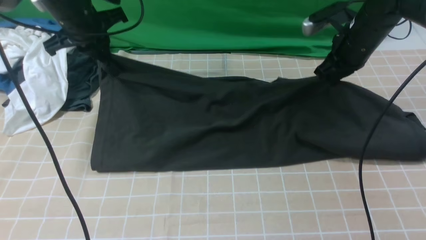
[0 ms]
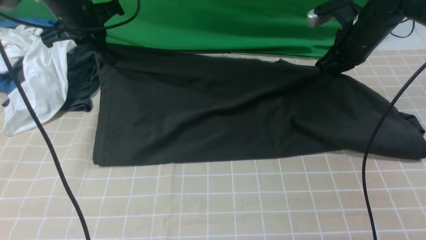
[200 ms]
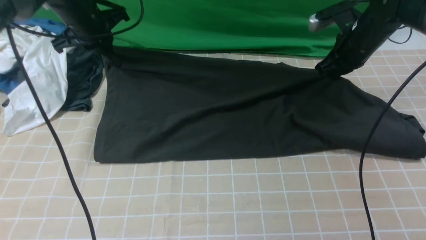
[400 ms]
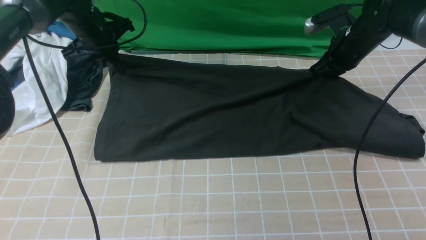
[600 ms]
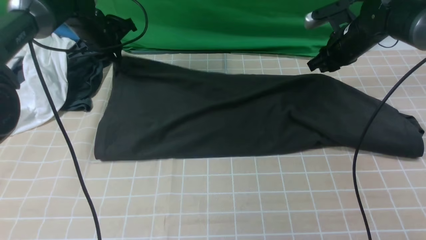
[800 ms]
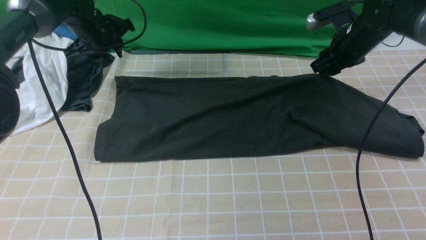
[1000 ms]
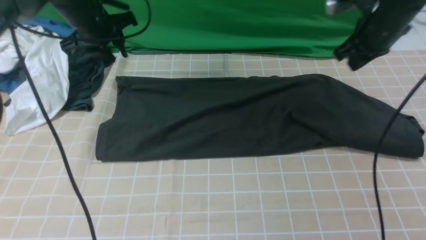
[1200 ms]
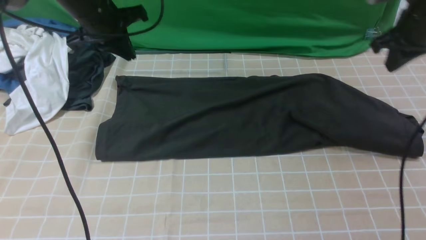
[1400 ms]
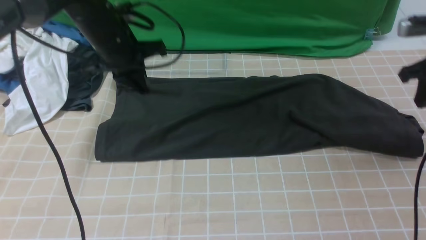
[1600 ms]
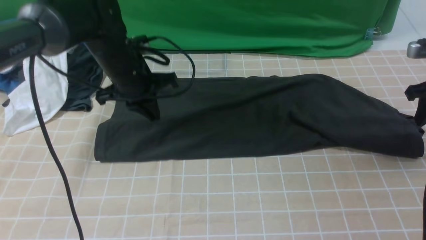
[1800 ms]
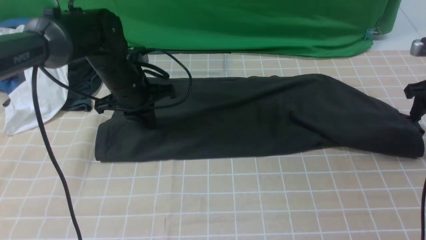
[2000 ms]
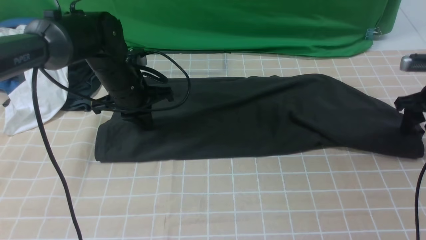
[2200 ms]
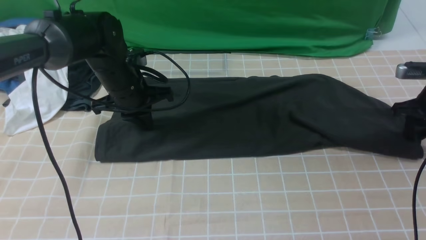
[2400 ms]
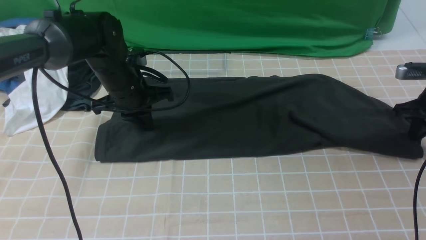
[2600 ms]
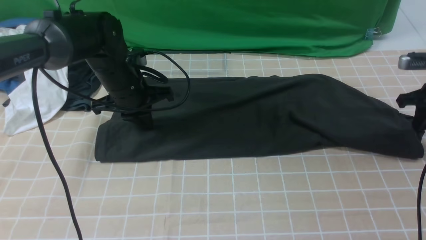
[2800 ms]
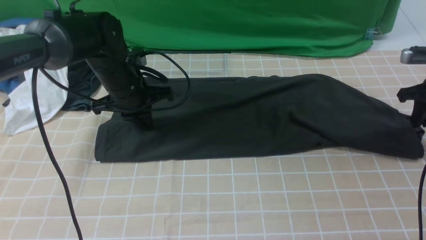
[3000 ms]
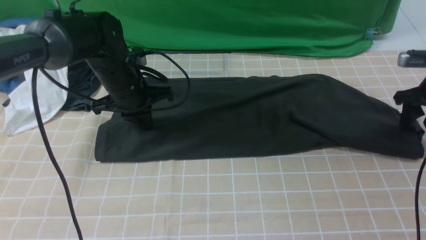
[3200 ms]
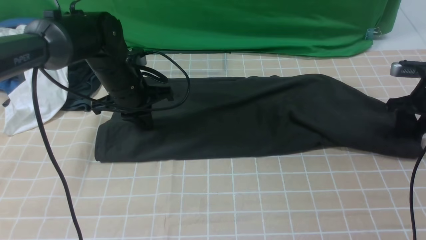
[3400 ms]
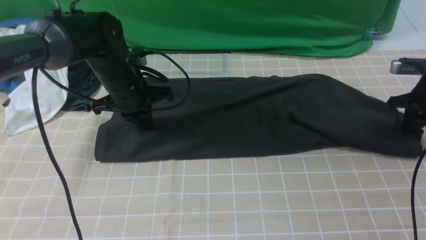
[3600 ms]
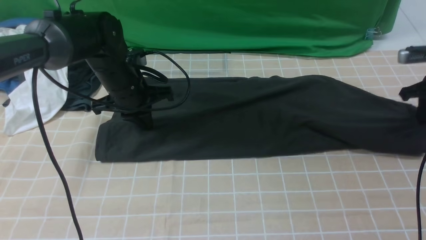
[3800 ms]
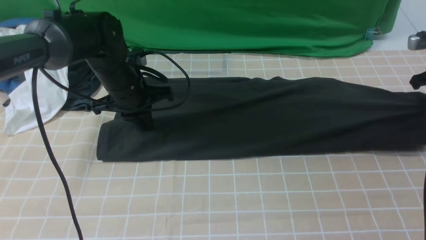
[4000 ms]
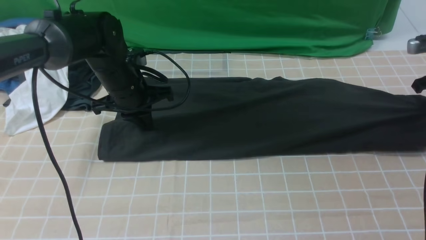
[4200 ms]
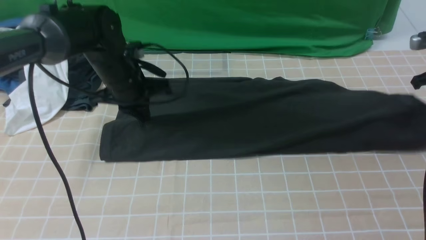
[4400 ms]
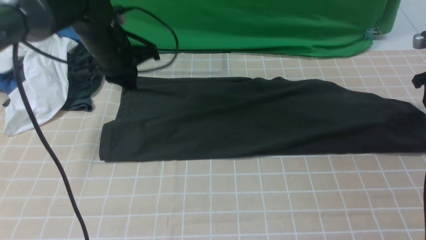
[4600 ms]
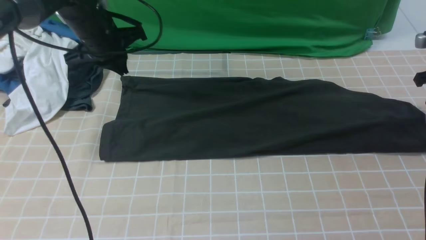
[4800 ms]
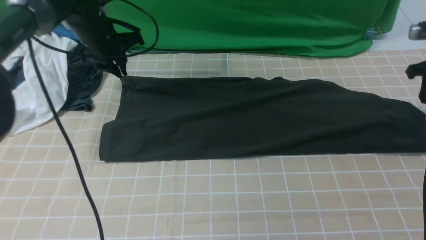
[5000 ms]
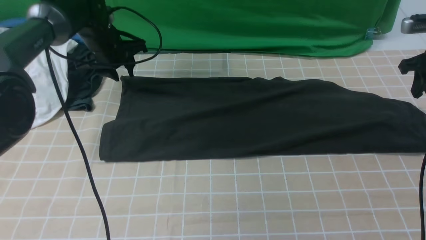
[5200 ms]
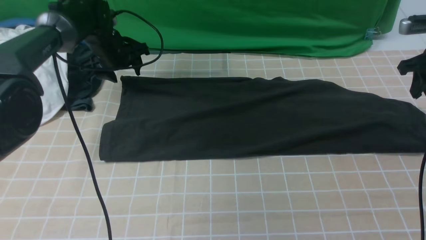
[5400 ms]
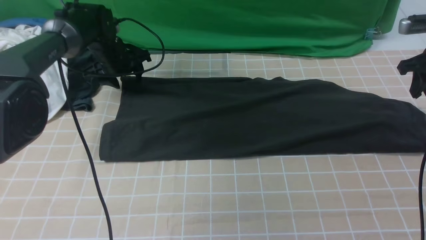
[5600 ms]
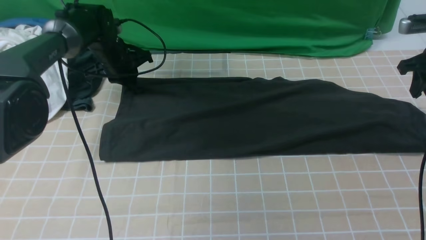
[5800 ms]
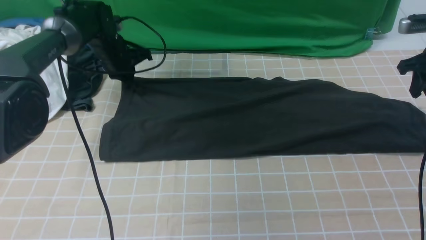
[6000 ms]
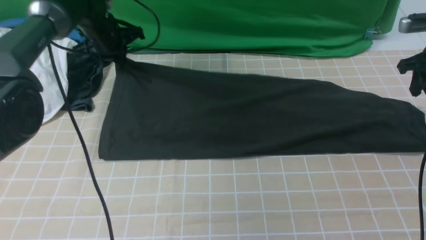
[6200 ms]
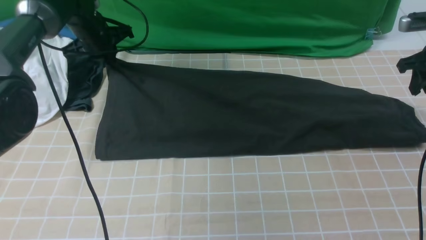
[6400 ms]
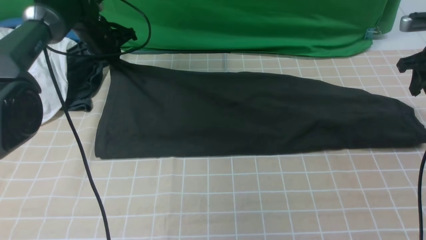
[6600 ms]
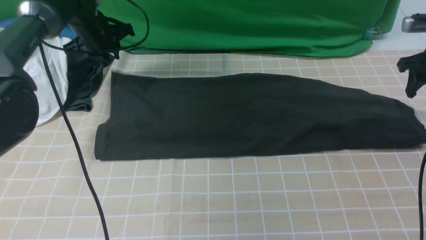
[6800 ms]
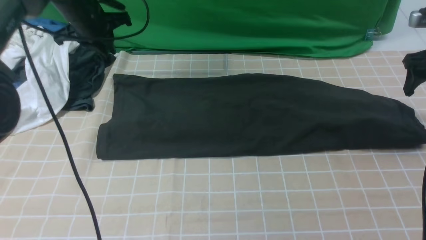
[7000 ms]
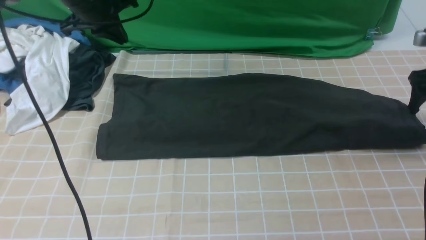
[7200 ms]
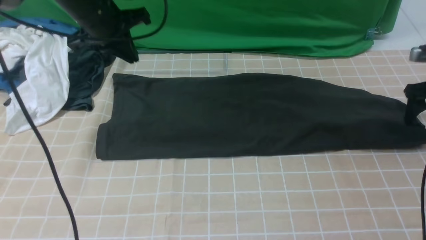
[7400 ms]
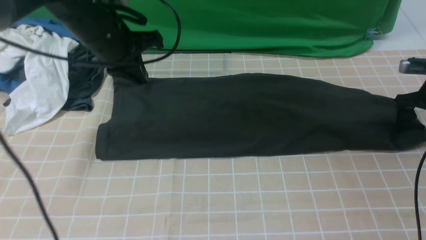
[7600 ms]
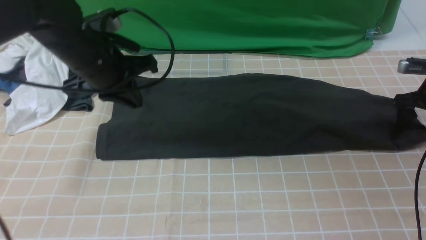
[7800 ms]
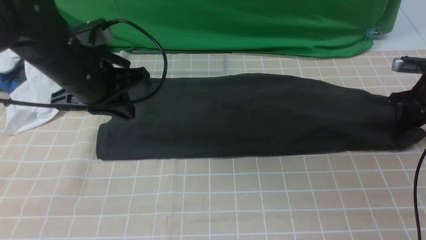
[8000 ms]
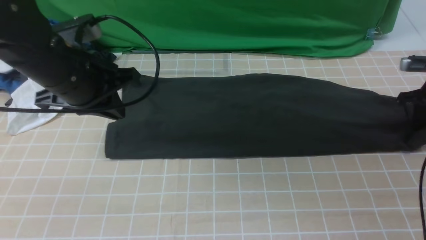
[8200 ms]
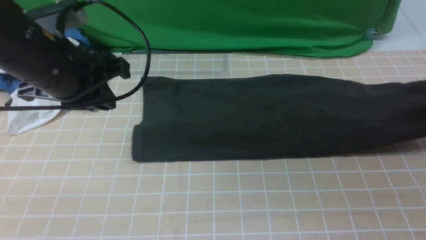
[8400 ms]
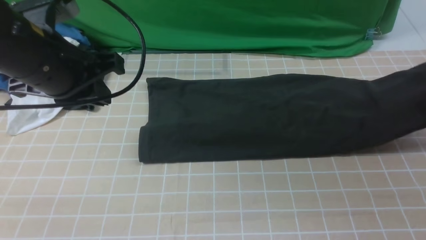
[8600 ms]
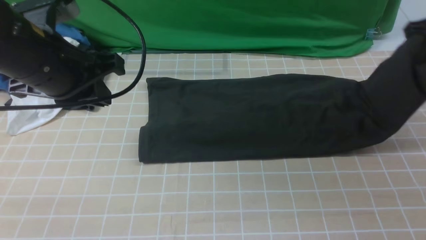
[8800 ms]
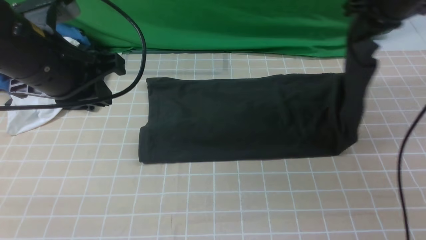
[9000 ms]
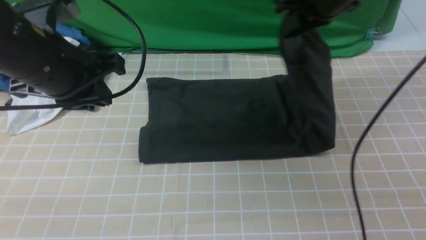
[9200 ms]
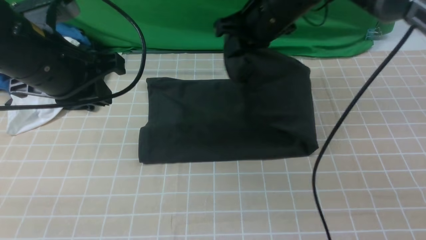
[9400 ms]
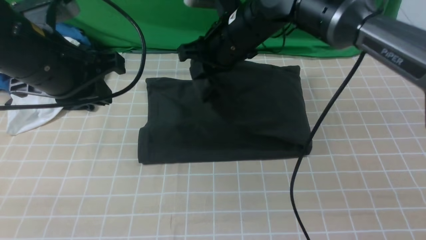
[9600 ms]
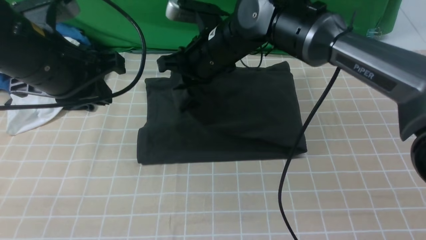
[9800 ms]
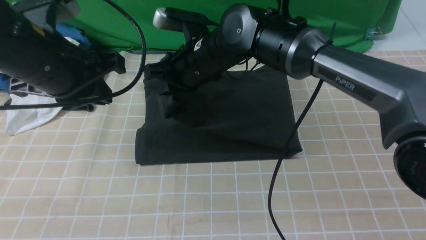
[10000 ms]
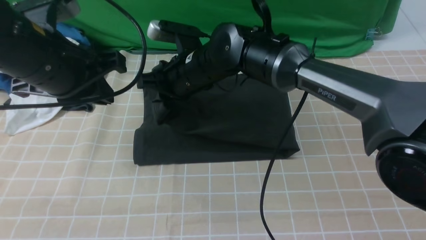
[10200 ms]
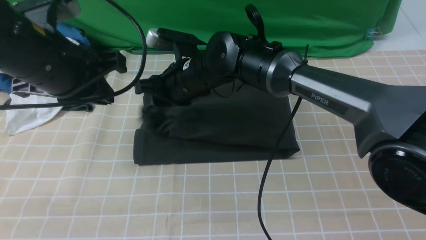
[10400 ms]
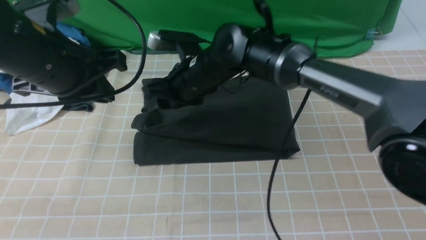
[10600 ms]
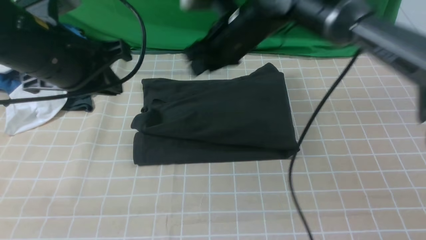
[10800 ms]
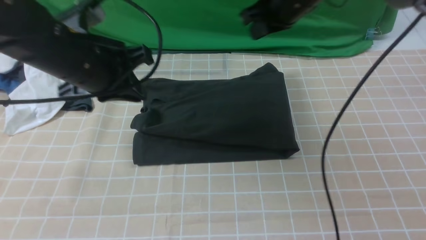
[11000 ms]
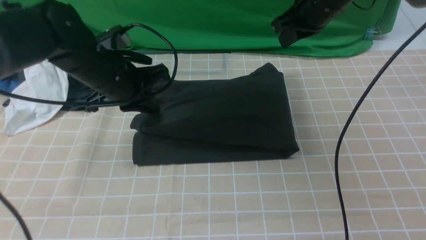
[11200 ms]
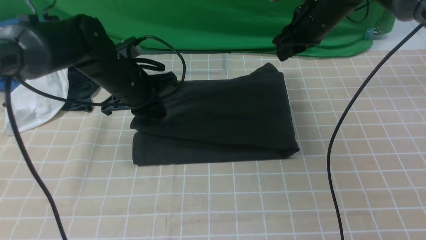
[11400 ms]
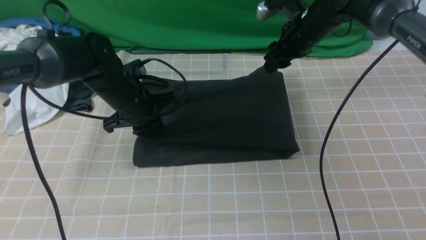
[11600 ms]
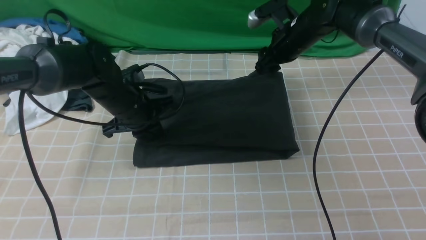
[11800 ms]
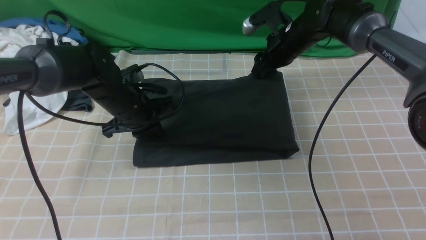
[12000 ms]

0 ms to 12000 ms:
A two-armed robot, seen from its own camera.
Step, 1000 ms to 8000 ms: use the right arm to clamp the right edge of the fabric.
Step, 8200 ms to 10800 ms: use the right arm to drag the right edge of the fabric to the left and folds it over the left edge.
0 ms to 1600 ms: The right gripper shifts some 15 cm to the right and backward; the left gripper travels to the right by roughly 5 cm, and opens, then closes once more.
1600 ms to 3000 ms: The two grippers go about 5 cm downward.
3000 ms to 4400 ms: The grippers make only small movements.
4400 ms to 6000 ms: The left gripper goes about 10 cm forward and to the left, and opens, then closes again.
6000 ms to 7600 ms: The right gripper goes some 10 cm downward, and opens its fingers. The left gripper travels backward and upward by roughly 15 cm.
7600 ms to 9000 ms: The left gripper shifts some 10 cm backward; the right gripper heads upward and to the left, covering about 25 cm, and closes up.
9000 ms to 10400 ms: The right gripper moves to the left and downward, some 30 cm, and opens.
10400 ms to 12000 ms: The right gripper is displaced to the right and forward by approximately 20 cm, and closes and opens again. Meanwhile the left gripper shifts approximately 20 cm downward and forward.

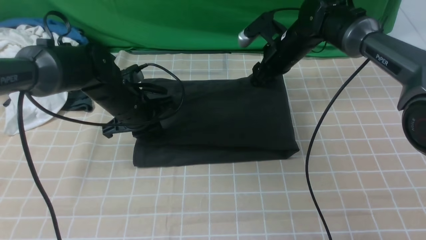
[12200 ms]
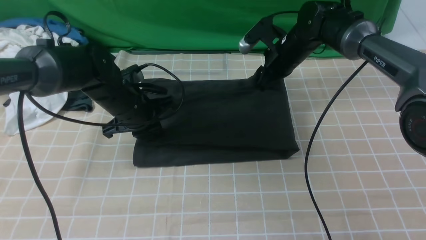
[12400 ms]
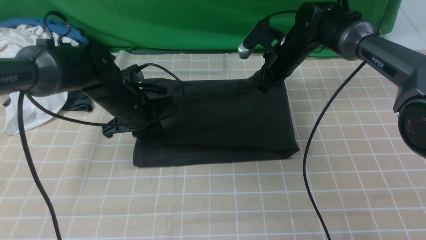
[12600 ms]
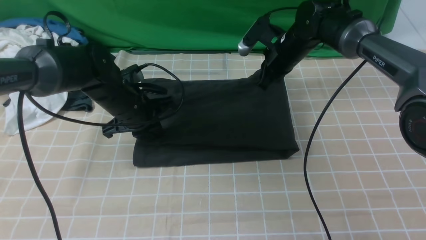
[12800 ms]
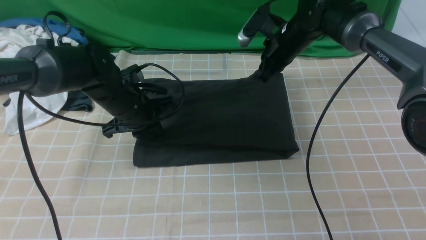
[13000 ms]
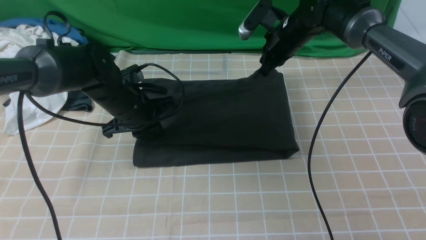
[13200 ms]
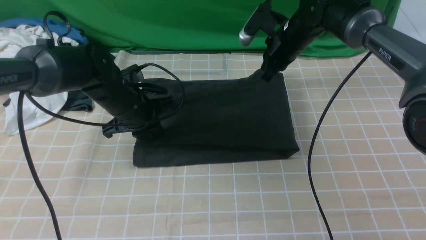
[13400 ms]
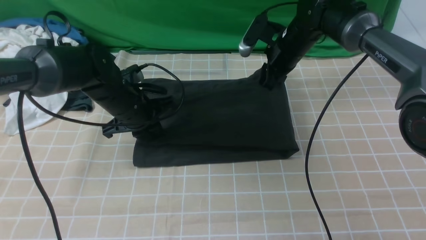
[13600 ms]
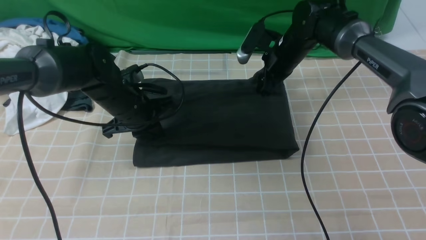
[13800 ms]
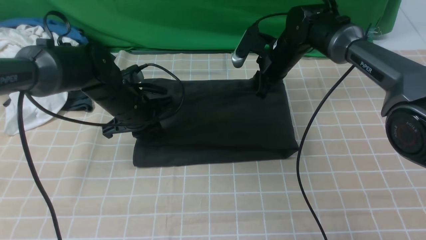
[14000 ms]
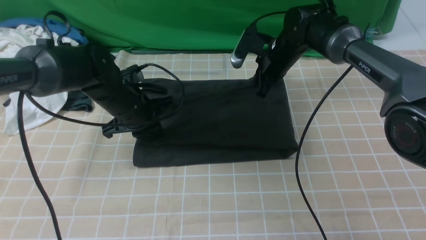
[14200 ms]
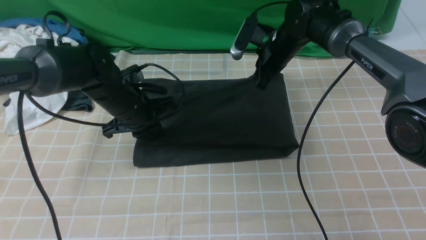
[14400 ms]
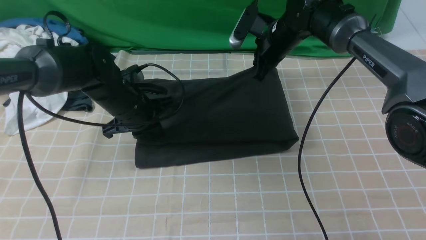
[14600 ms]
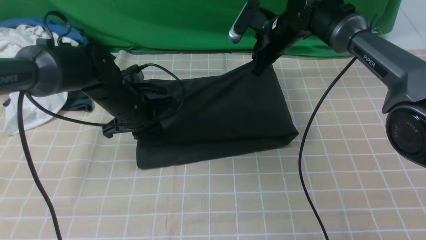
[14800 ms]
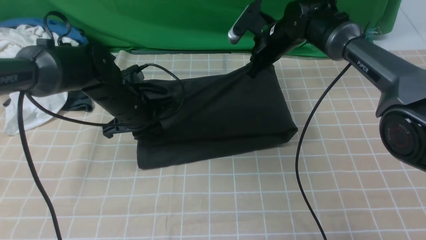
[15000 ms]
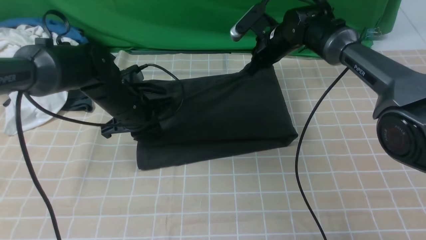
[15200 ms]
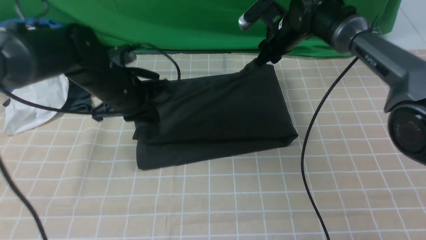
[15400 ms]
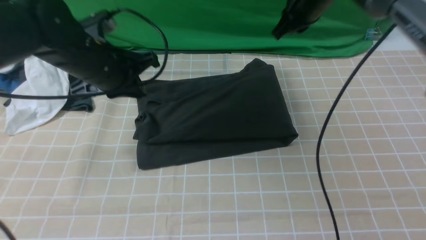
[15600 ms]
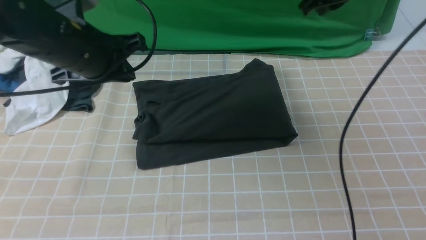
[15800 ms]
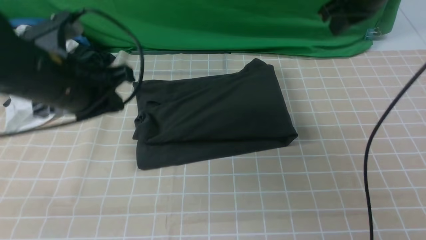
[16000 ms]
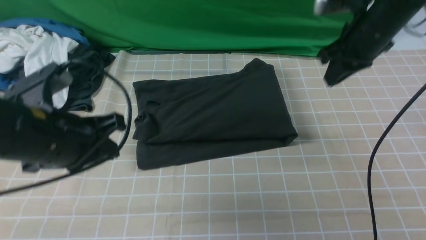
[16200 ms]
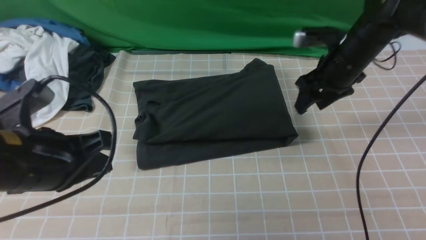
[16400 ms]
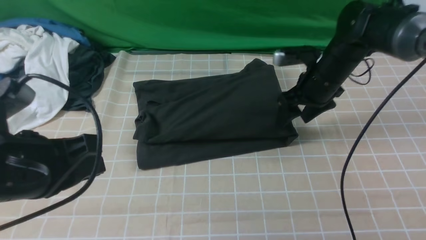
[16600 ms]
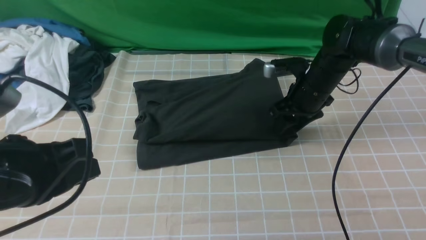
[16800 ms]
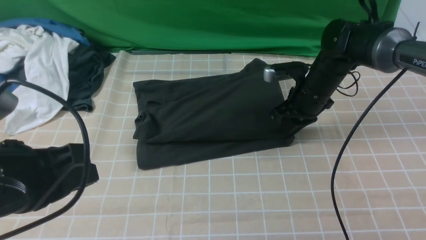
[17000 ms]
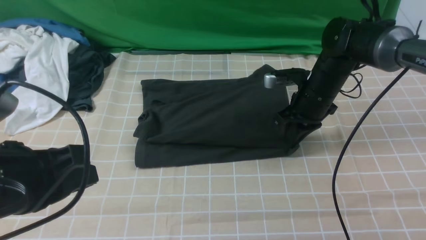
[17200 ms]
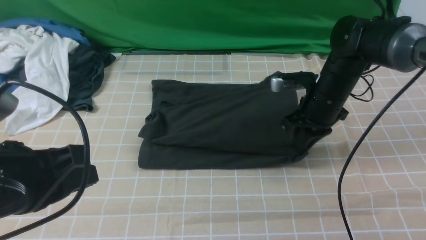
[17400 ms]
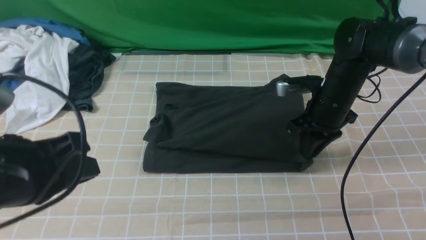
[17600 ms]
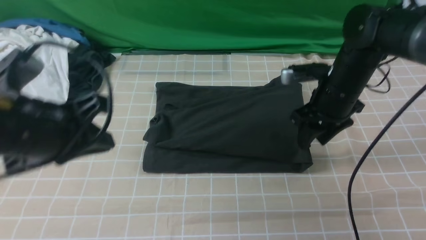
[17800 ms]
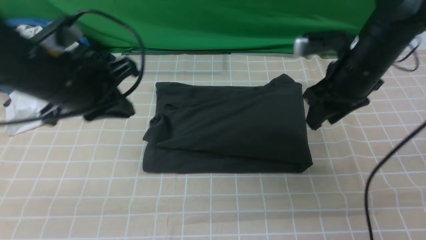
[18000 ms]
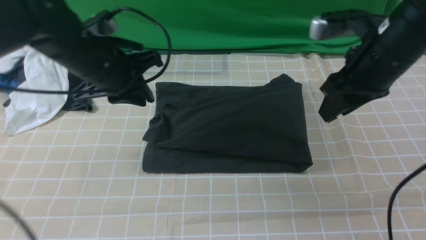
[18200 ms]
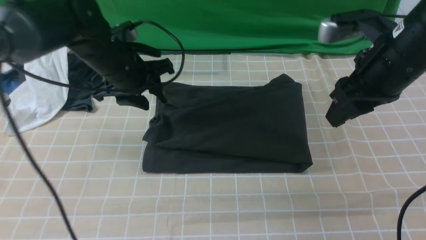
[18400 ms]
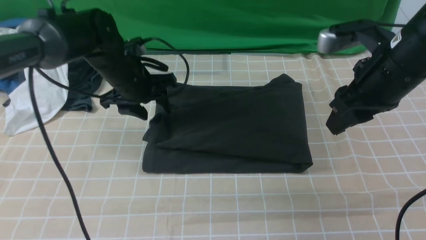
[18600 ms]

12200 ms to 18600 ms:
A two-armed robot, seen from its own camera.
12200 ms to 13800 ms: The right gripper closes and opens again.
13800 ms to 15400 ms: Both grippers travel together upward, about 5 cm. The right gripper closes, then opens again.
15400 ms to 17000 ms: The right gripper heads backward and downward, covering some 15 cm, and opens, then closes again; the left gripper shifts about 25 cm backward.
17000 ms to 18600 ms: The right gripper shifts approximately 20 cm upward and backward. The left gripper travels forward by approximately 30 cm, and opens up.
